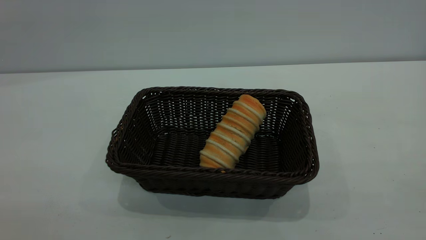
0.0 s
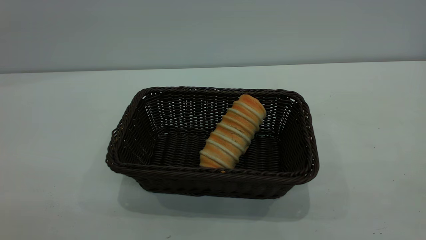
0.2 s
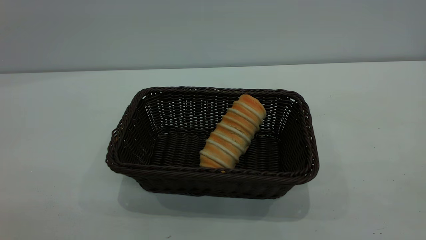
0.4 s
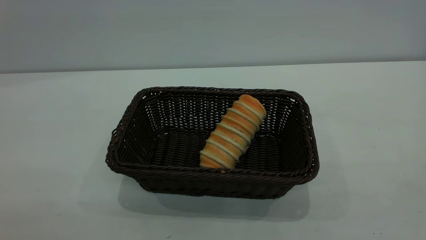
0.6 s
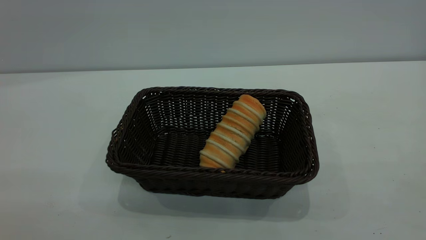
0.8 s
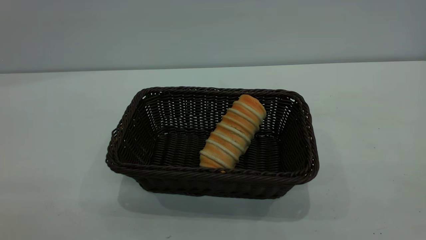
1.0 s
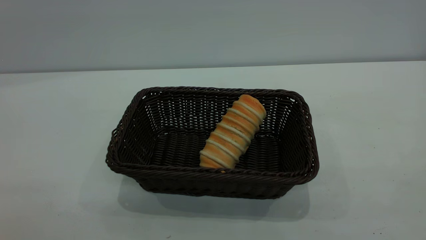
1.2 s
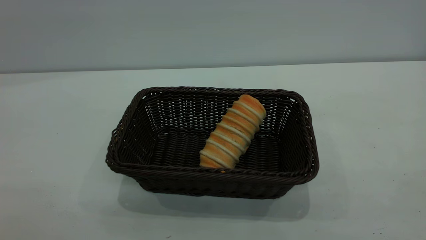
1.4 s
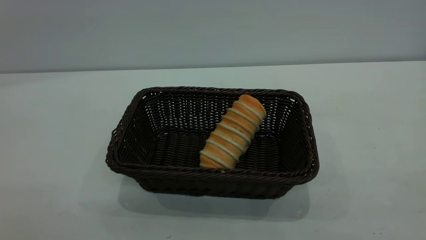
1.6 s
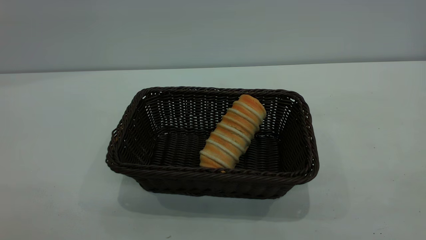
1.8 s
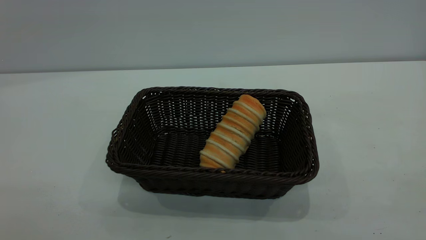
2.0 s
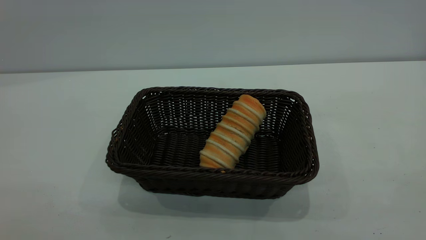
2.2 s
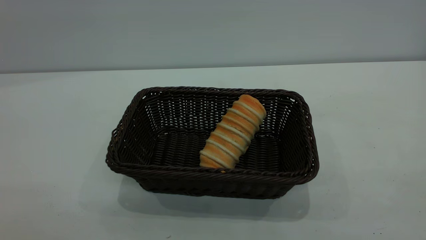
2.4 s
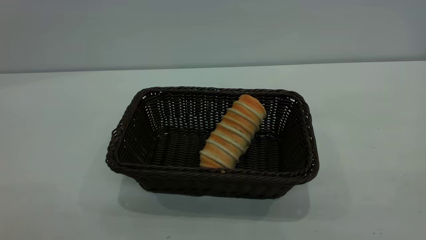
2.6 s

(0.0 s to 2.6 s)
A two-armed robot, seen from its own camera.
Task of the whole recording: One hand grasps the black basket and places it in the middle of the table, while the other hand picks up the long bread and puts it into the black basket.
1.2 s - 2.6 s: Both grippers stay about where they are.
